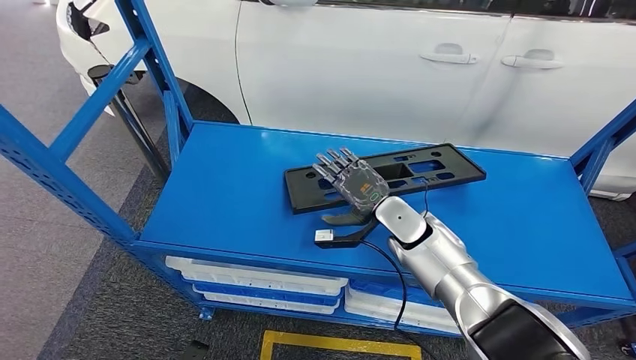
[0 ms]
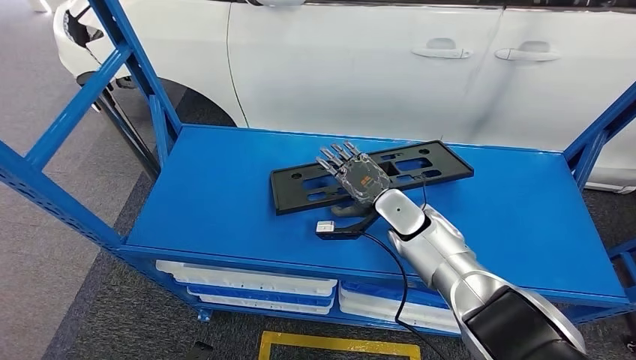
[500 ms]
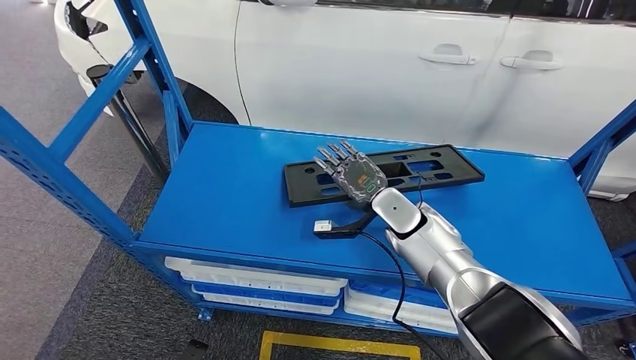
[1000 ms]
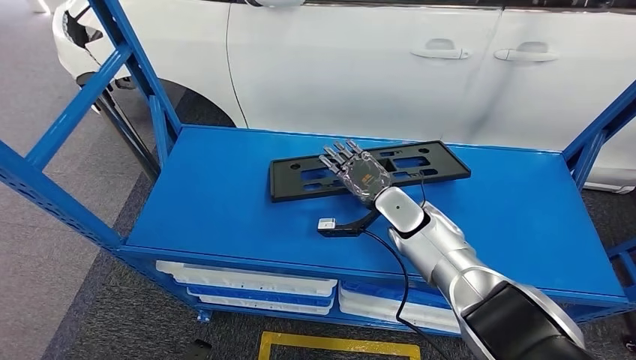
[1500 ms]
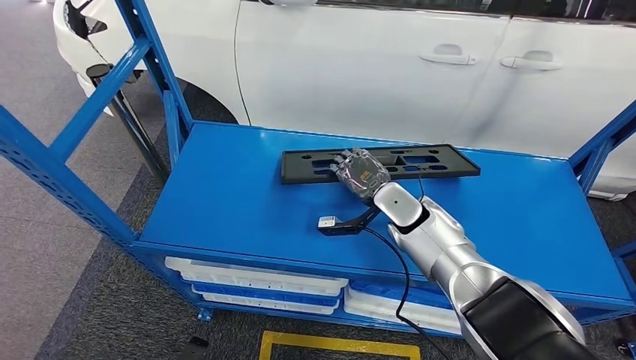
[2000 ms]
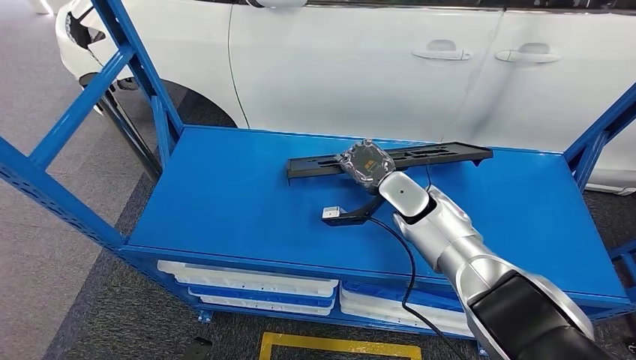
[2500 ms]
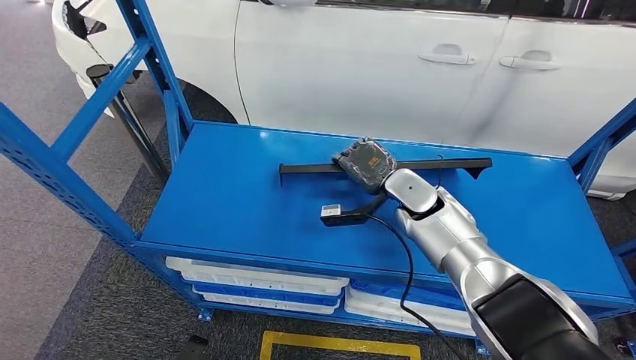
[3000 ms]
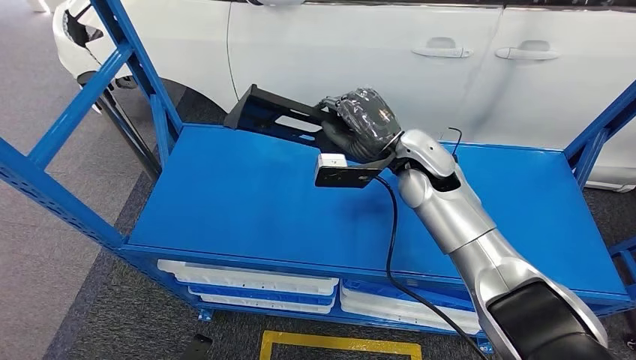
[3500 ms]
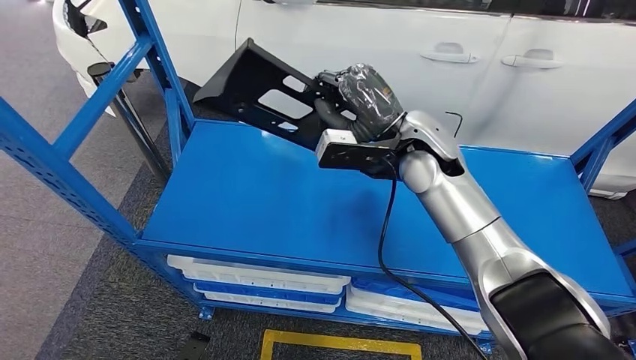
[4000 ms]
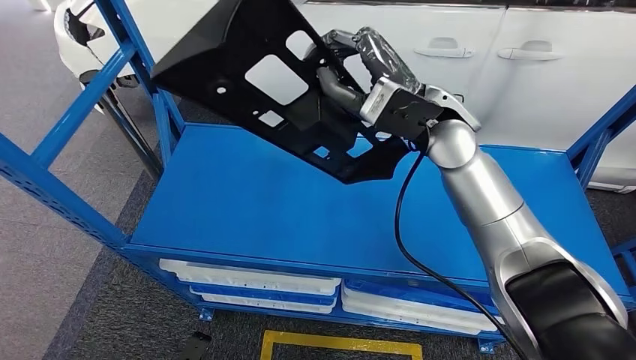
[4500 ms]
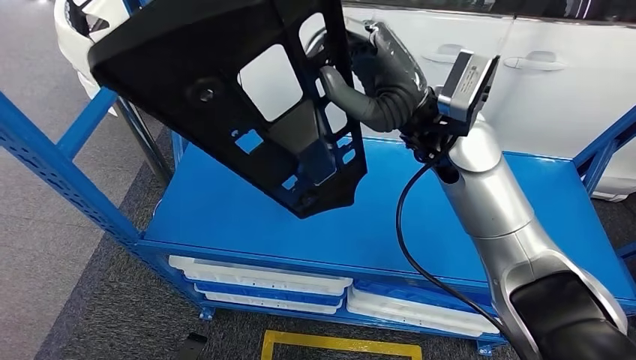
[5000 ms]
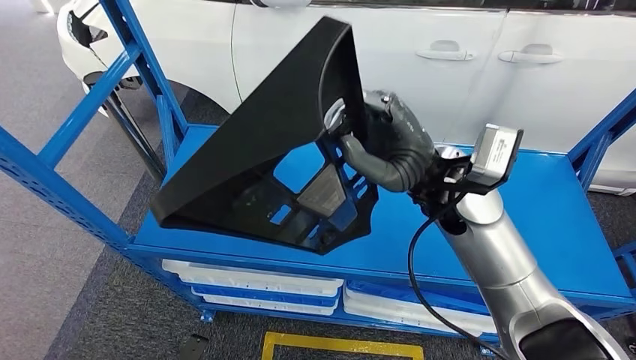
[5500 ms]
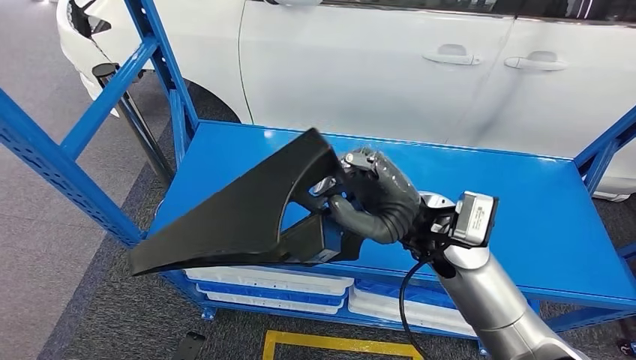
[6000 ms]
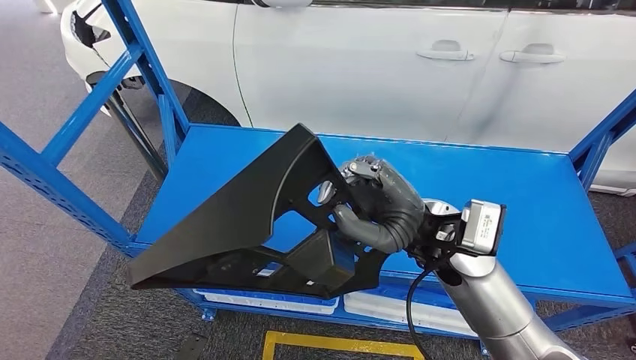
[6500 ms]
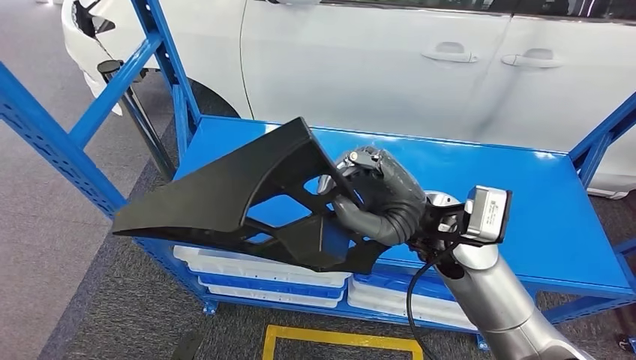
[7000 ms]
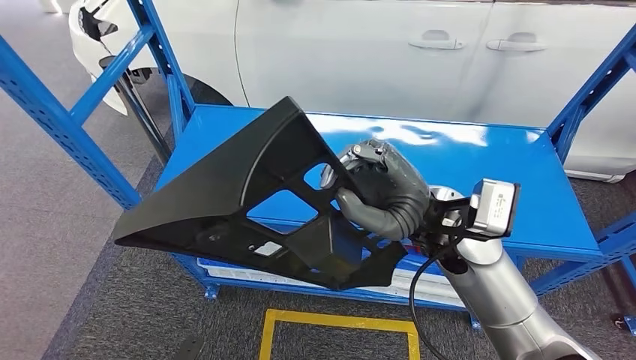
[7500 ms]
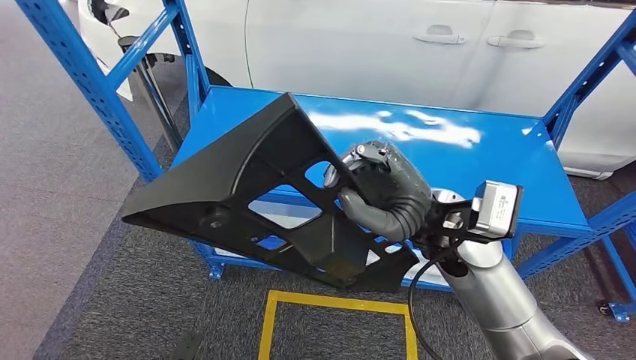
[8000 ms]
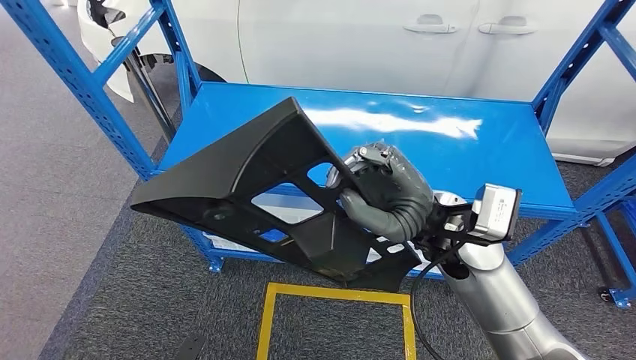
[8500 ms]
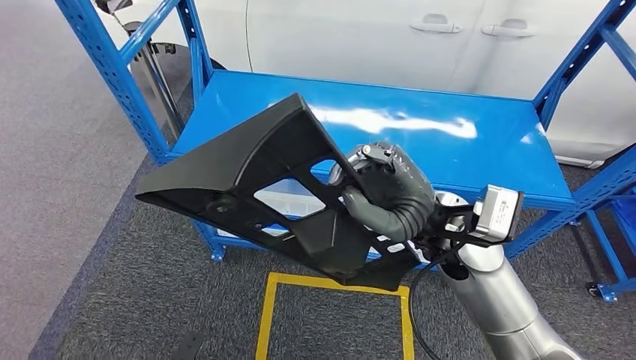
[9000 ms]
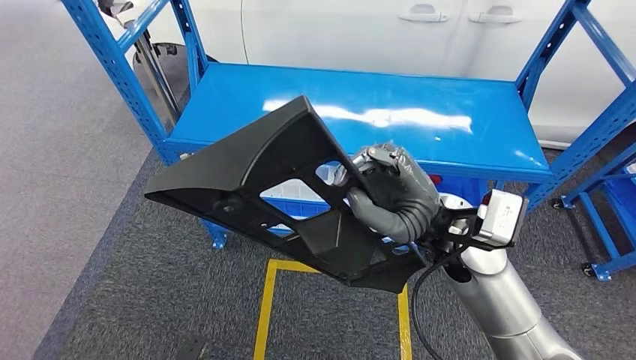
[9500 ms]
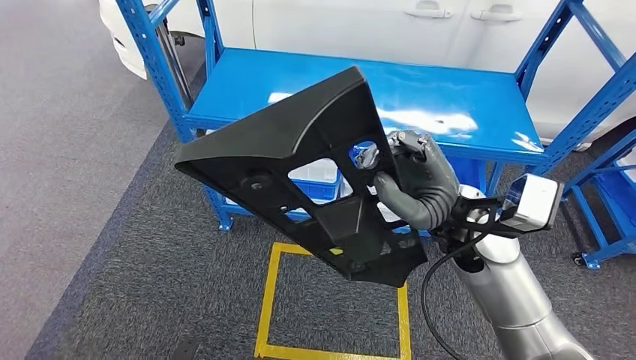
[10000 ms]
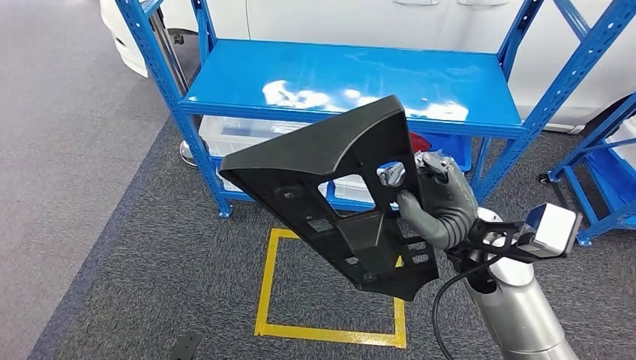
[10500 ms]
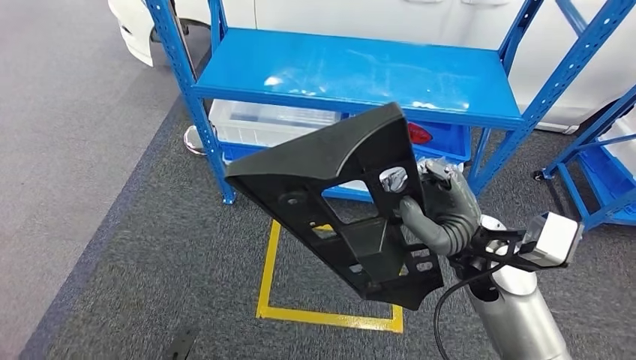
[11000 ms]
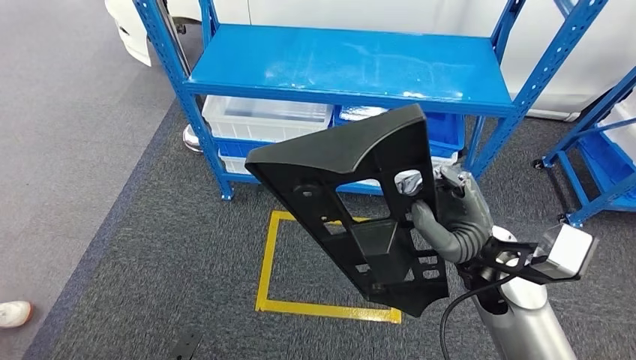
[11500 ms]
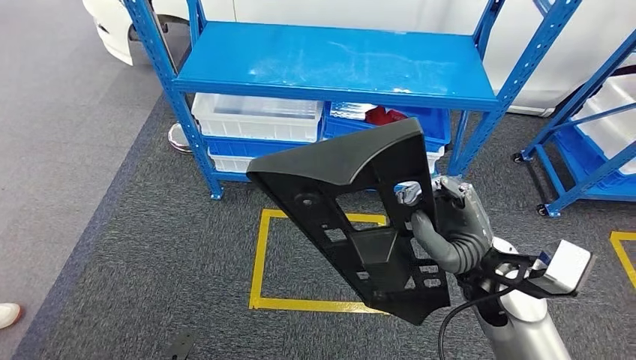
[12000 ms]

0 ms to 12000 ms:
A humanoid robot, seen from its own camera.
Step, 0 ms to 8000 ms: Pick up the large material from the shelf.
0 ms to 2000 ms: There are only small adjustments of the hands.

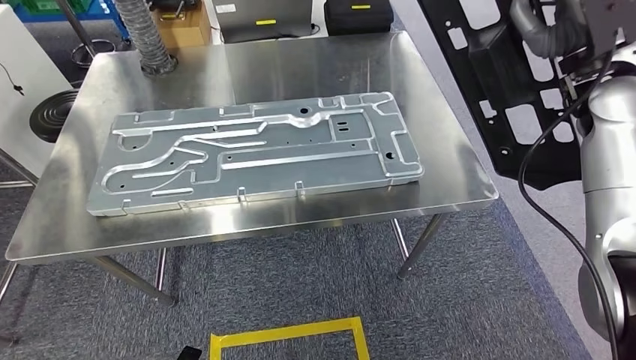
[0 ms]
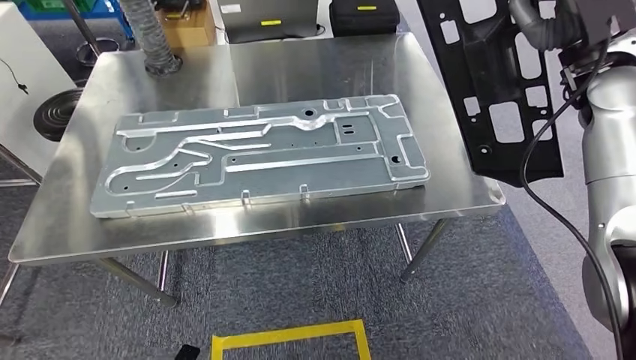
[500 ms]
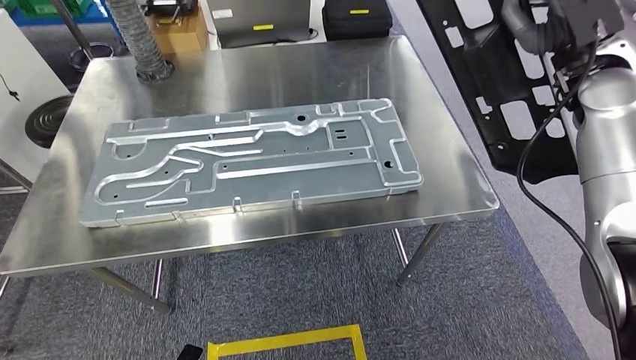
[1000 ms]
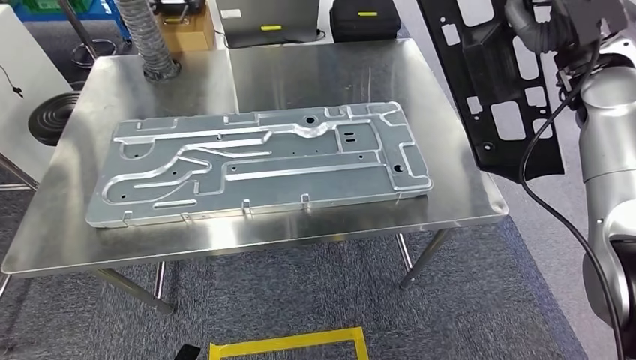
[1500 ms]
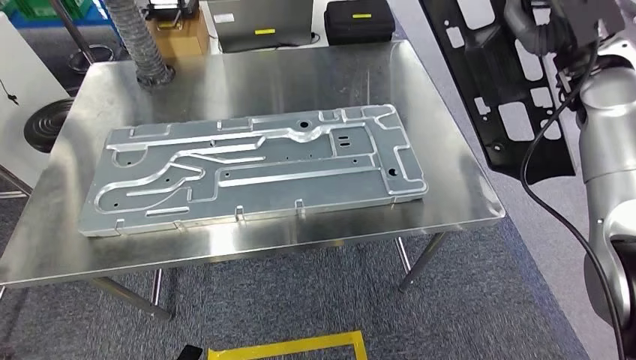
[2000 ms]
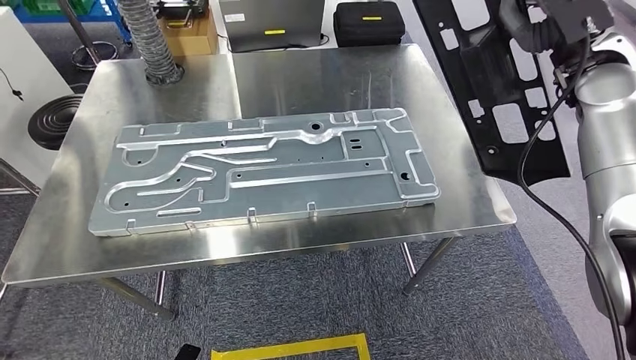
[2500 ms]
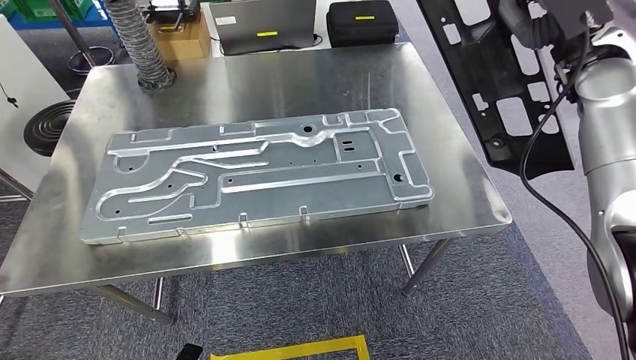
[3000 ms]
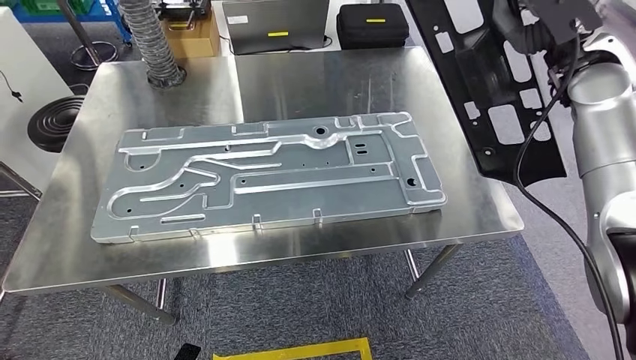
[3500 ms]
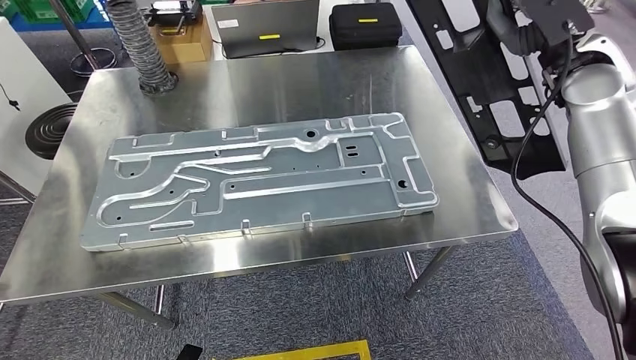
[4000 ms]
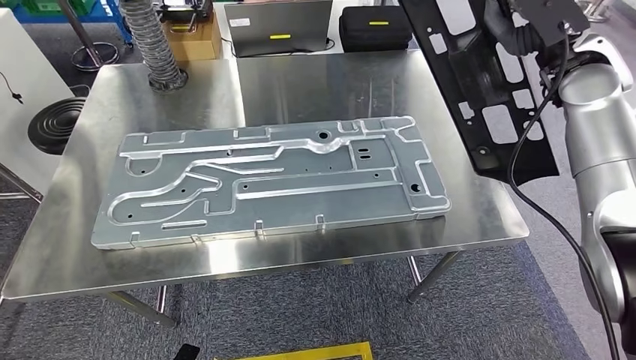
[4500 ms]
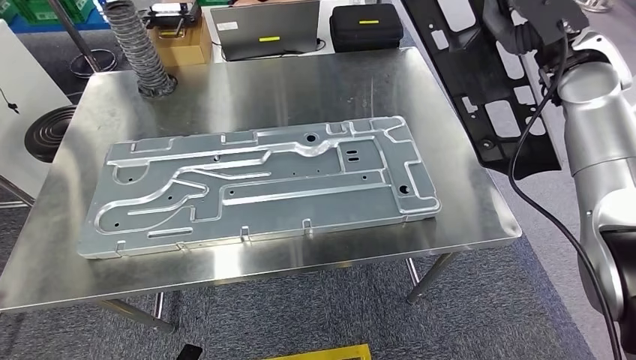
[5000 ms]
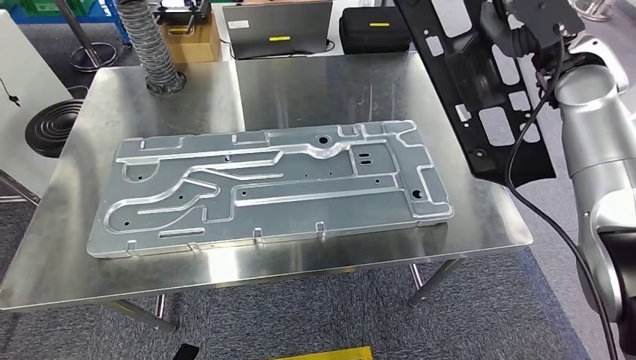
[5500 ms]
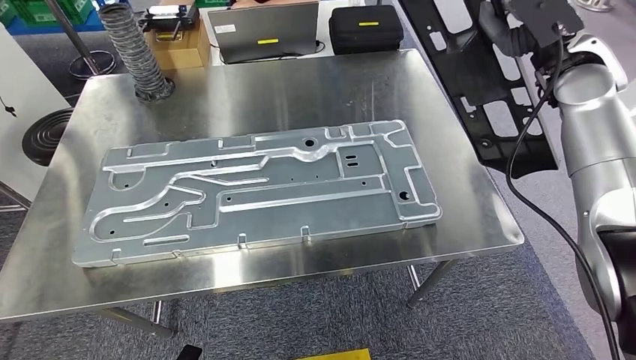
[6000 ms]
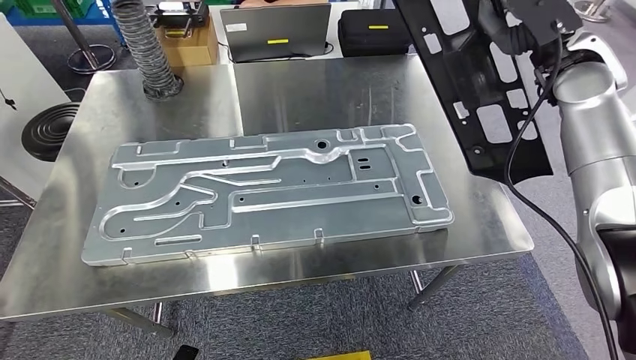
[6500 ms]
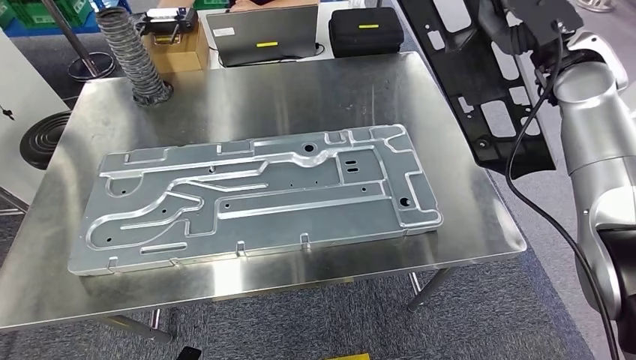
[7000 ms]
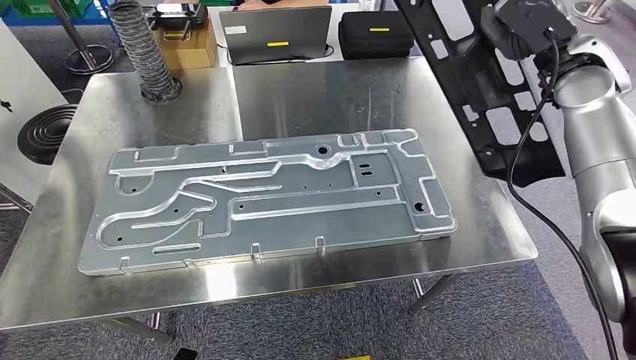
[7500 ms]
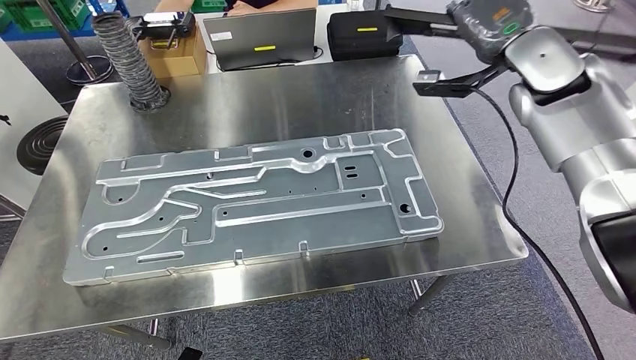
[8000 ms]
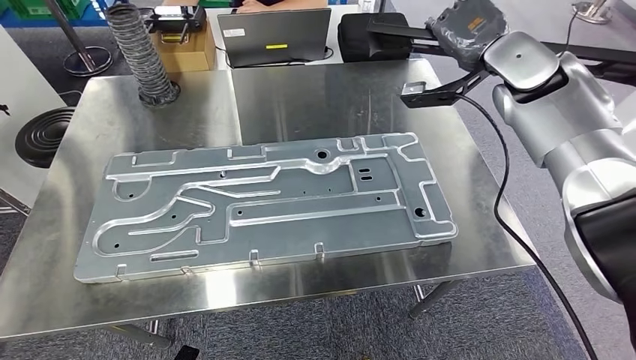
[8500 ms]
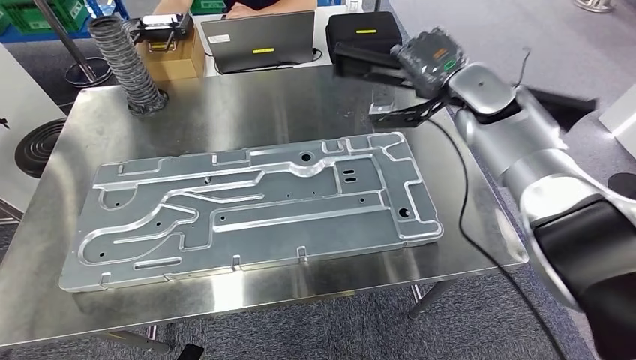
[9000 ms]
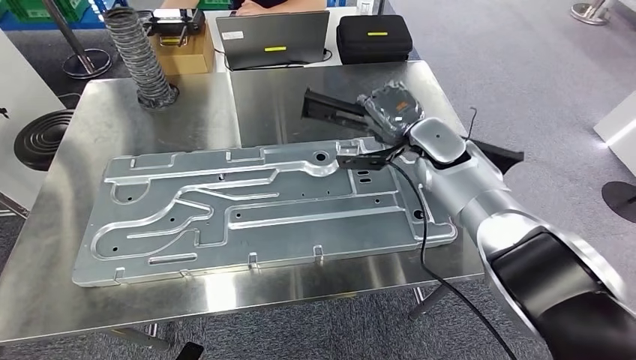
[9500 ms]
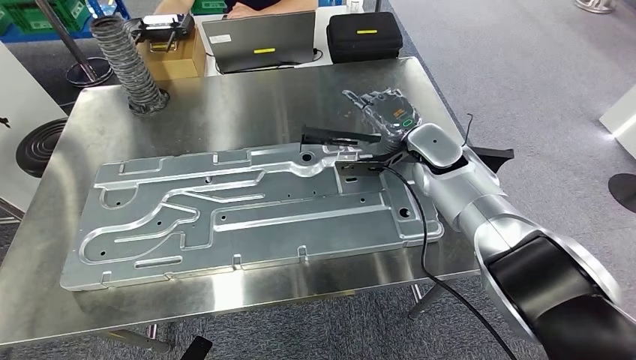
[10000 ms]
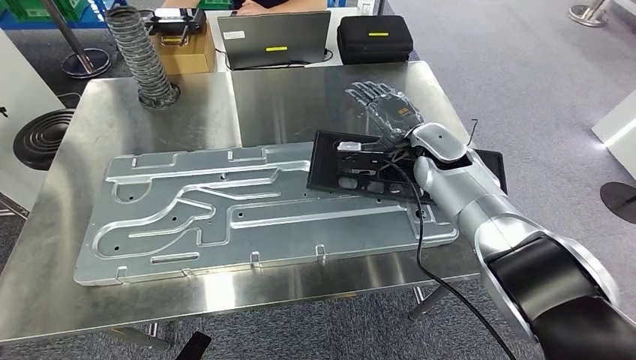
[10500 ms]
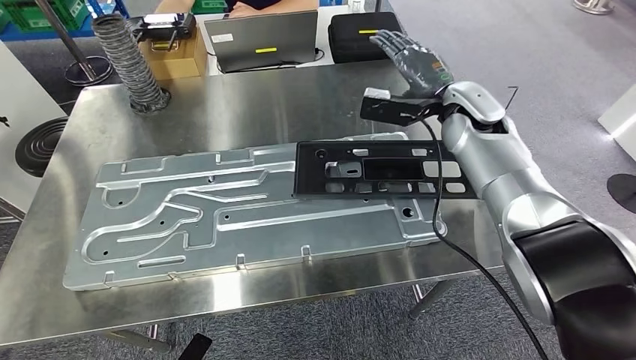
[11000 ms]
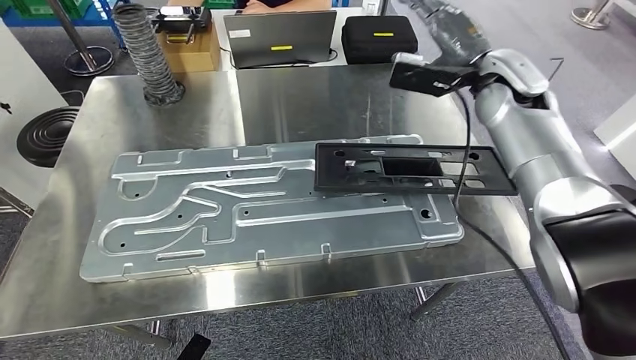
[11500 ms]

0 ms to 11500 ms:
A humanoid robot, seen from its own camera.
Step, 0 ms to 2000 ms: Move the large material to the workbench.
